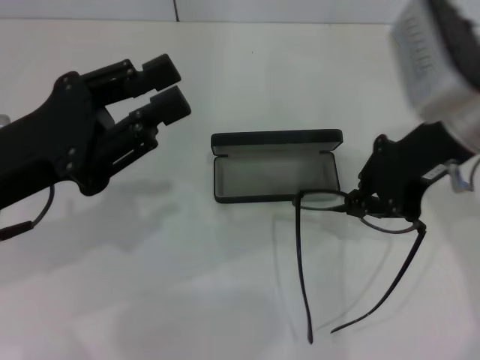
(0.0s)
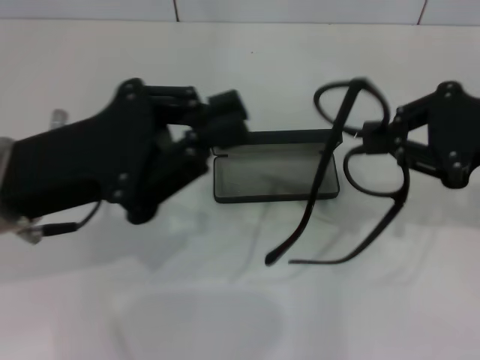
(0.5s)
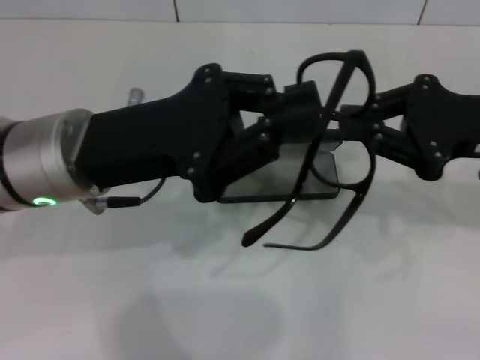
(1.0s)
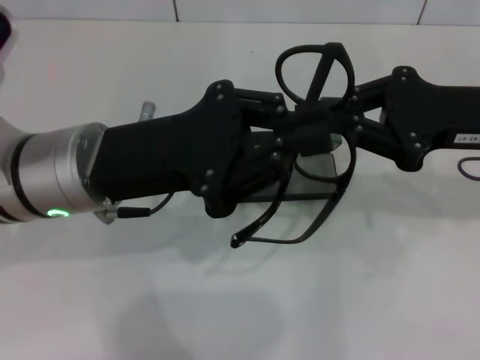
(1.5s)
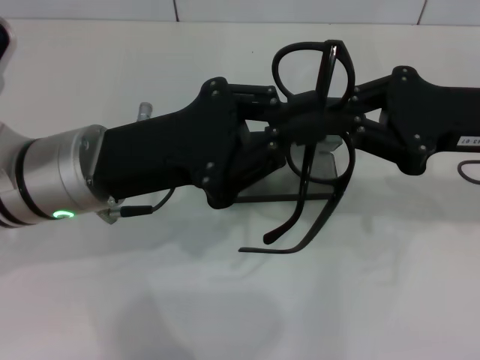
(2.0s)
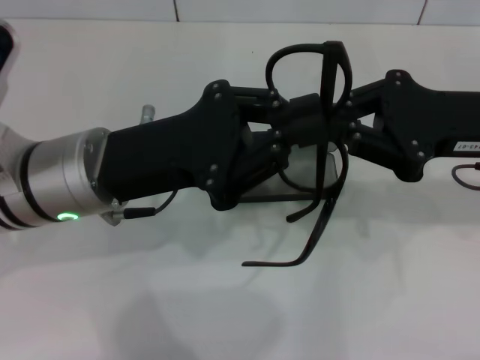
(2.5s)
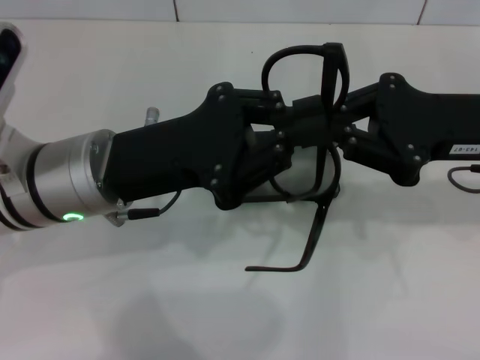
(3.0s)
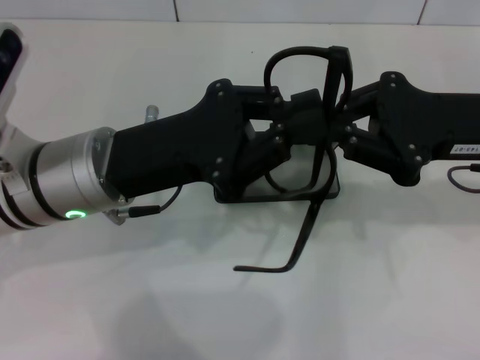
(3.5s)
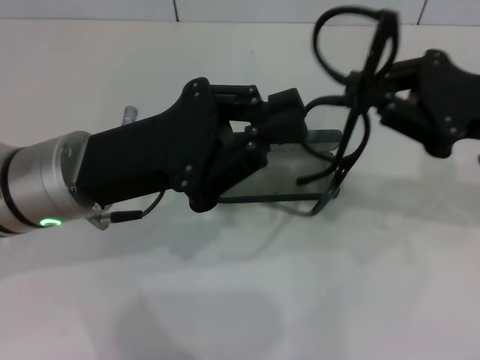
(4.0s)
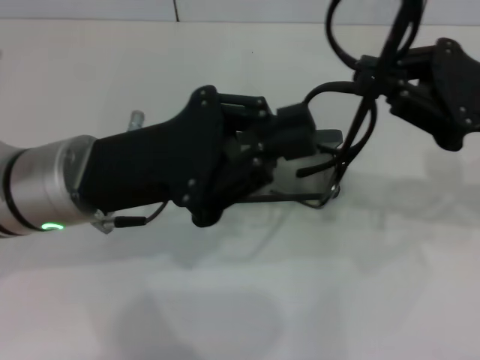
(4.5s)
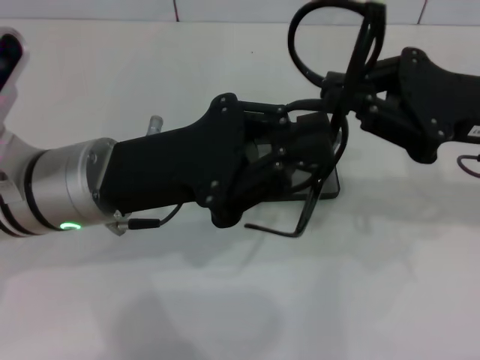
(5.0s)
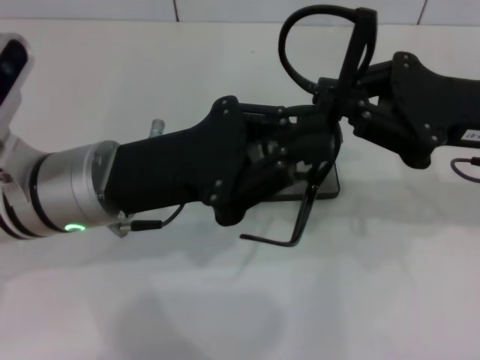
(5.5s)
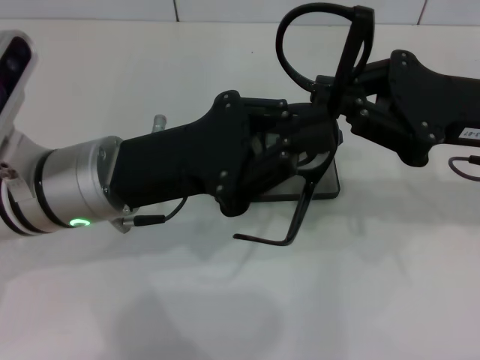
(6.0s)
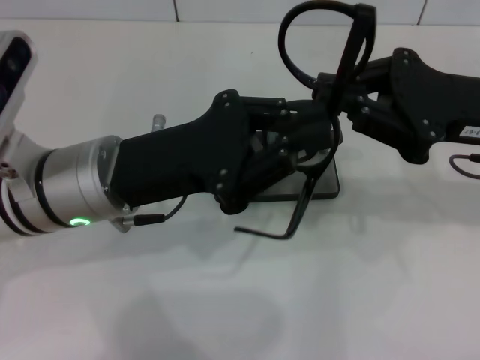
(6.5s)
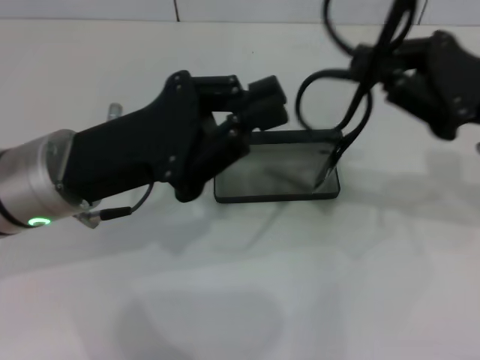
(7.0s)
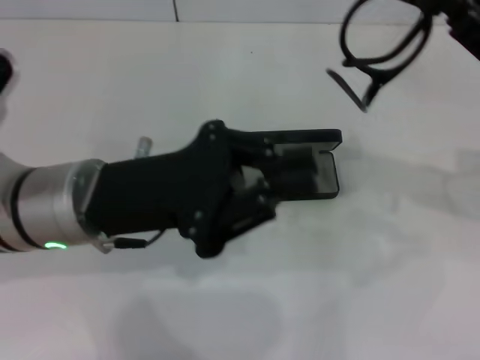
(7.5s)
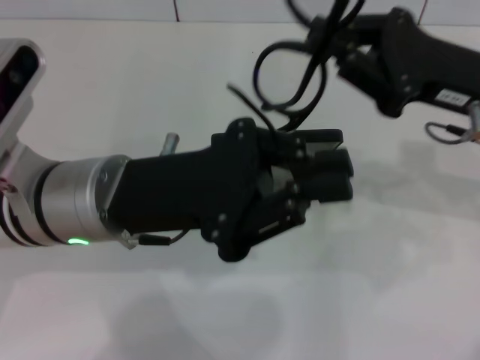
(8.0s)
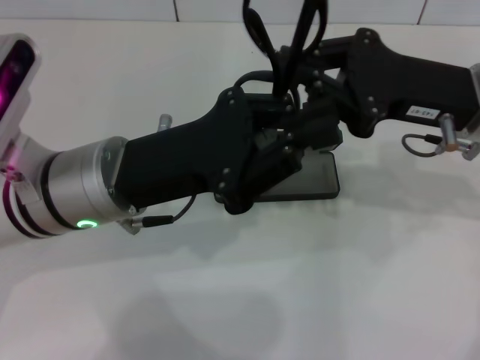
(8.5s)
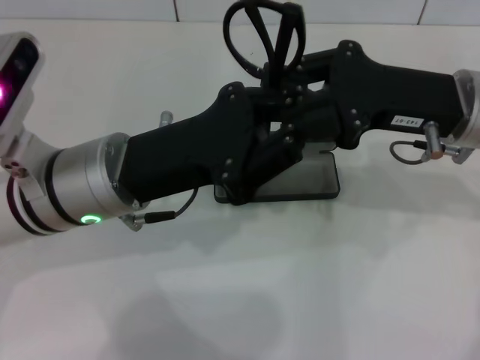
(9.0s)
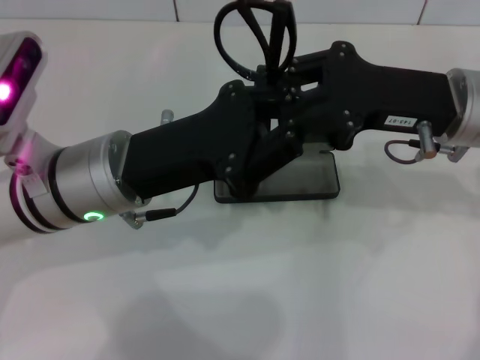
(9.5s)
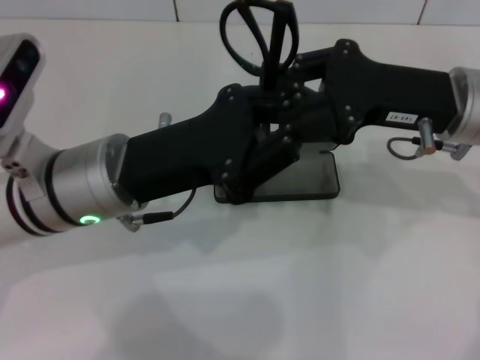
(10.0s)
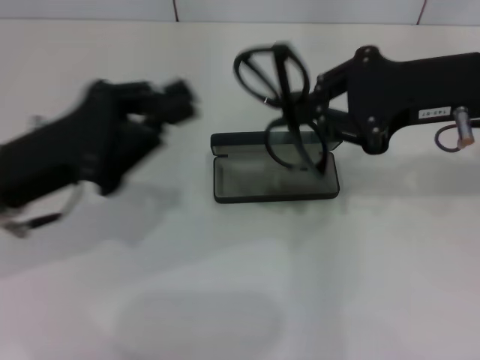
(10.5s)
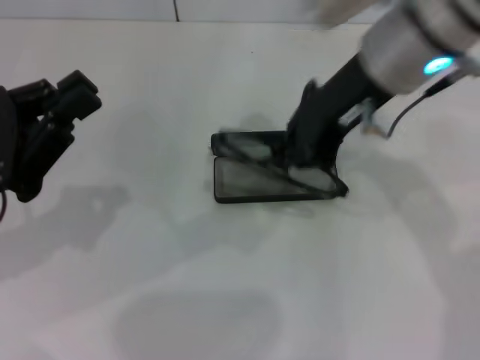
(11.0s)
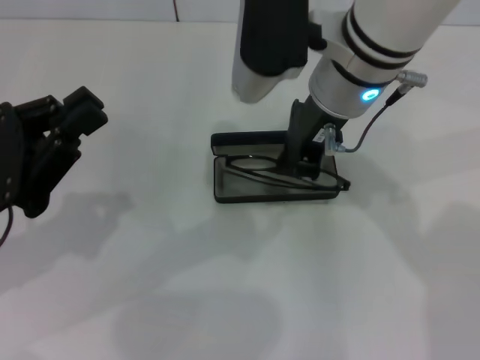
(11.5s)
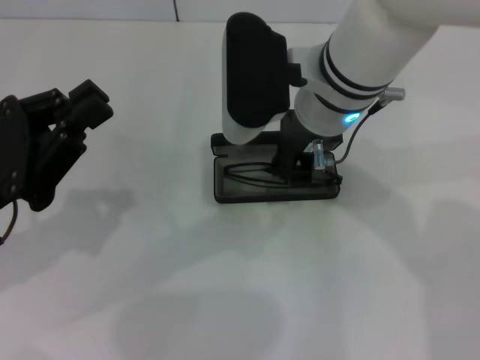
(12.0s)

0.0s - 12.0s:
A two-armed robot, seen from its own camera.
Step, 0.0s - 10.0s: Fold the frame with your left hand.
0.0s - 2.0s: The two grippers go roughly 5 cm to the right.
2.0s - 4.0s: The grippers move only a little.
10.0s - 12.0s: The left gripper goes approximately 15 cm to the left and backward, while the right gripper heads to the left, covering approximately 15 cm.

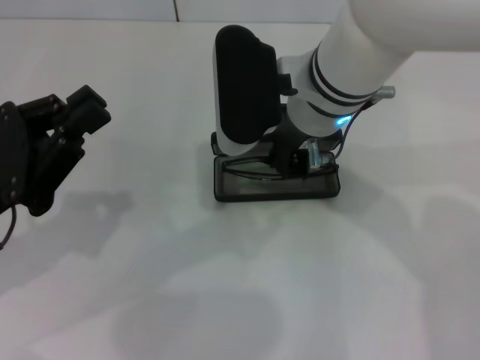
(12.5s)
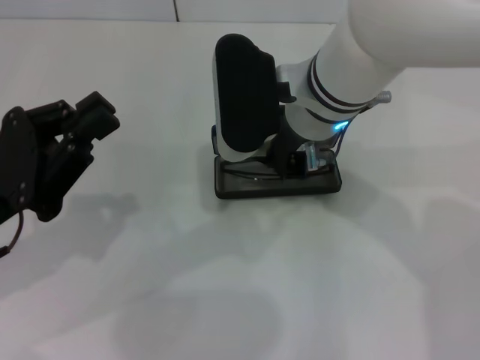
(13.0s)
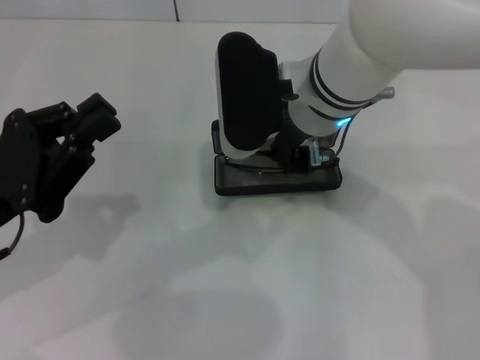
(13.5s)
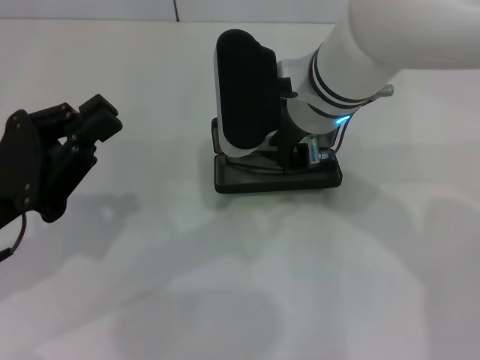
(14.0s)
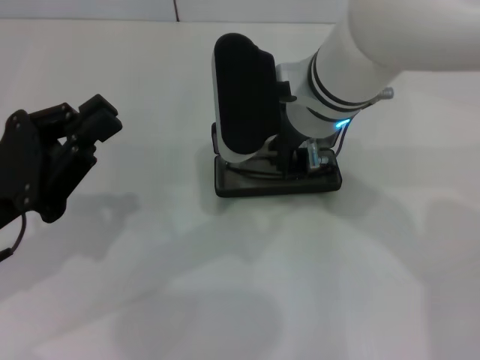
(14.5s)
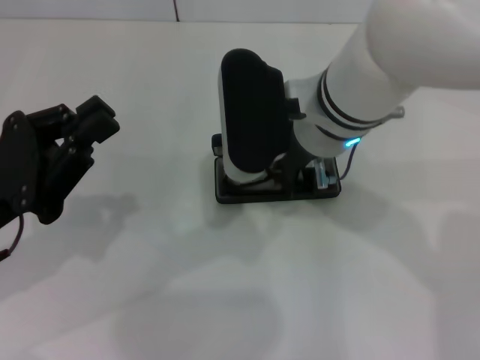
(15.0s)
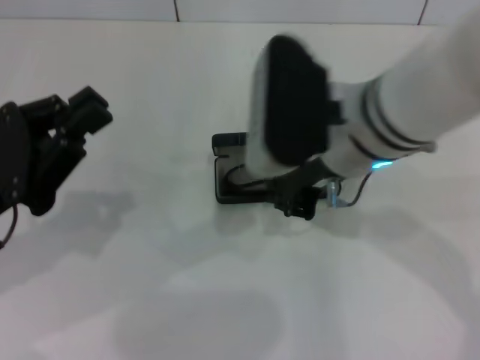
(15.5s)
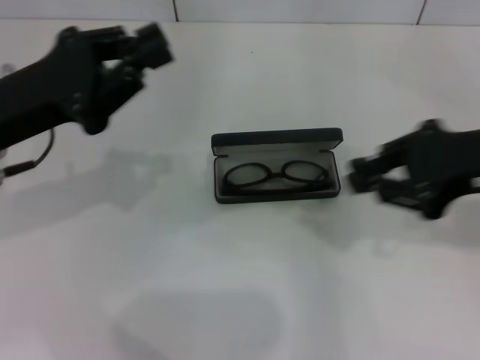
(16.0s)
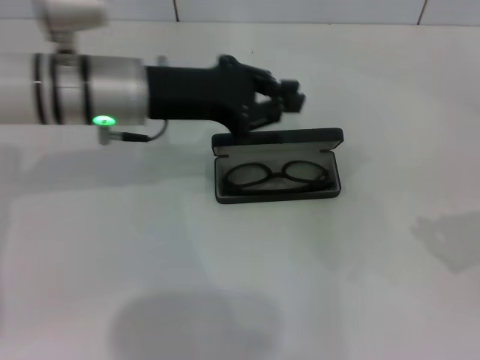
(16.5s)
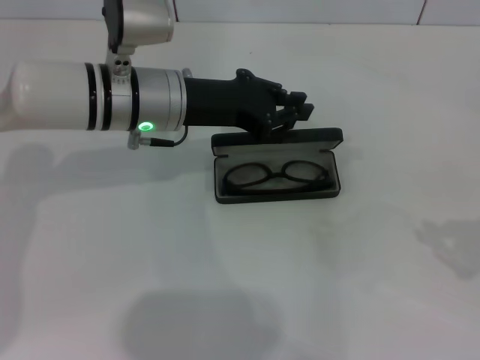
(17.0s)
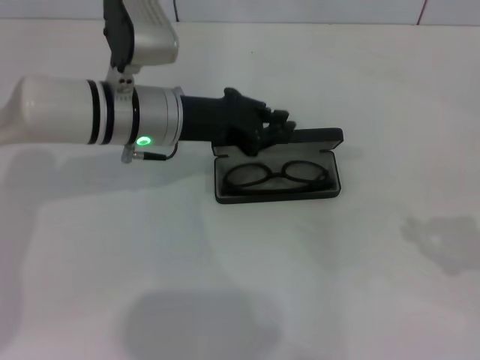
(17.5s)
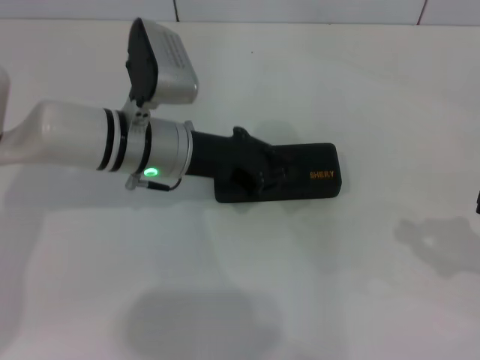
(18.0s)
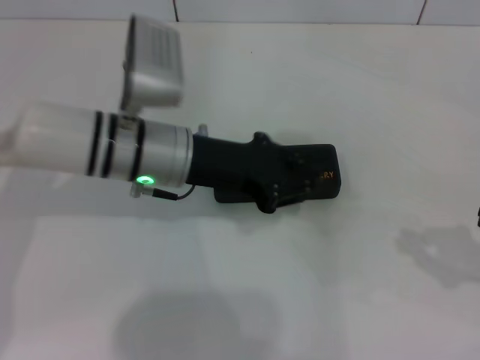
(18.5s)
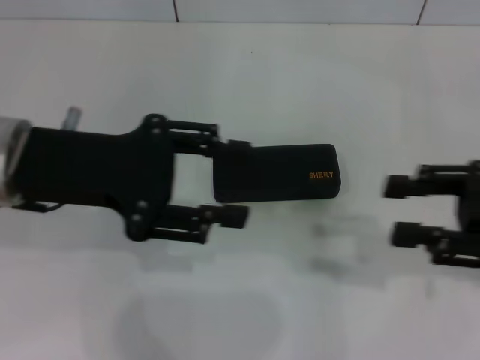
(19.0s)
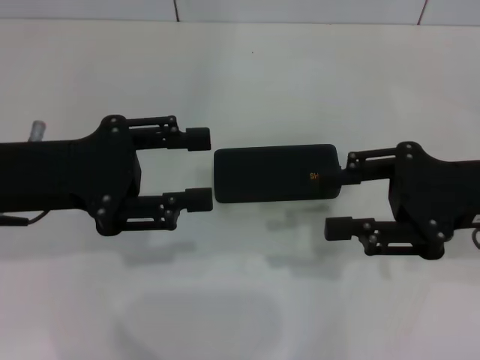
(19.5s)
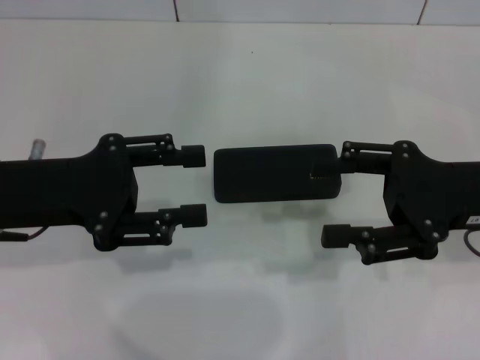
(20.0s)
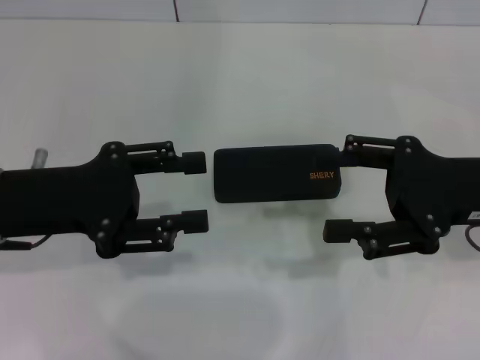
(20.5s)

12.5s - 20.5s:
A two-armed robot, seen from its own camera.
Step, 12.5s - 14.5s: Put the glasses into the case with your right hand.
Step, 15.5s - 17.5s: Close the glasses case with your left hand.
12.5s - 14.5s: Both grippers stay about where they are.
14.5s - 16.5s: The left gripper shifts approximately 20 cm forward and to the right; the right gripper shifts approximately 35 cm to the right.
16.5s - 18.5s: The left gripper changes place by roughly 5 cm.
18.5s - 20.5s: The right gripper travels to the left and forward by about 15 cm, and opens. The left gripper goes roughly 15 cm to the left and backward, and opens.
